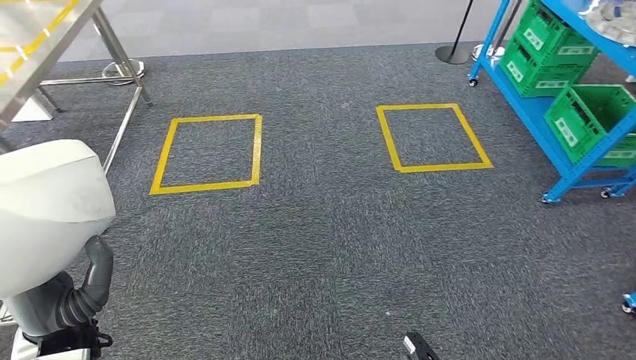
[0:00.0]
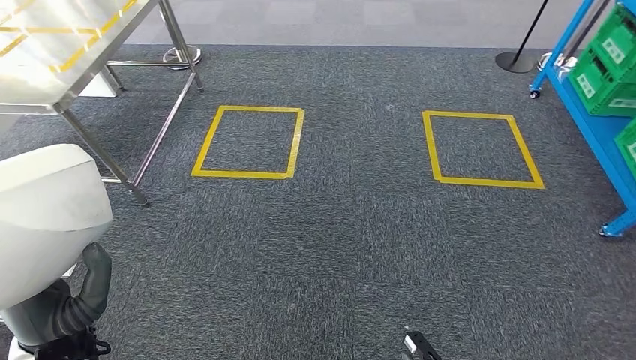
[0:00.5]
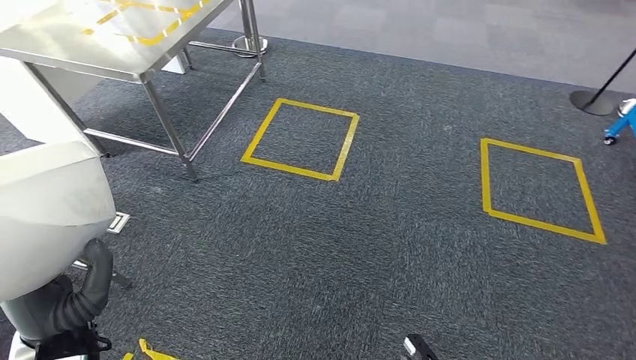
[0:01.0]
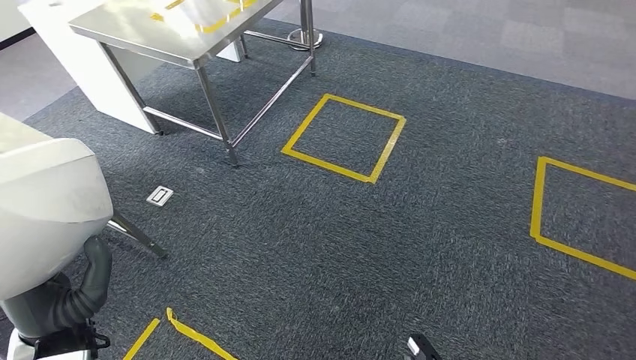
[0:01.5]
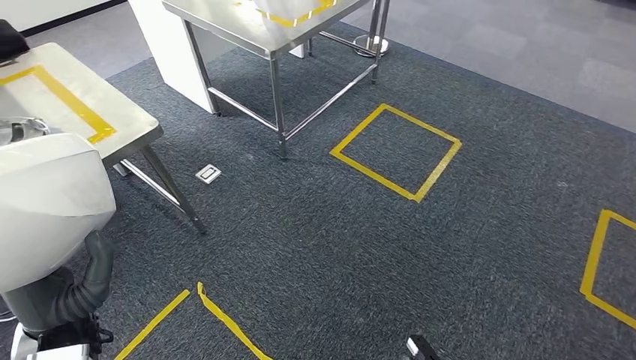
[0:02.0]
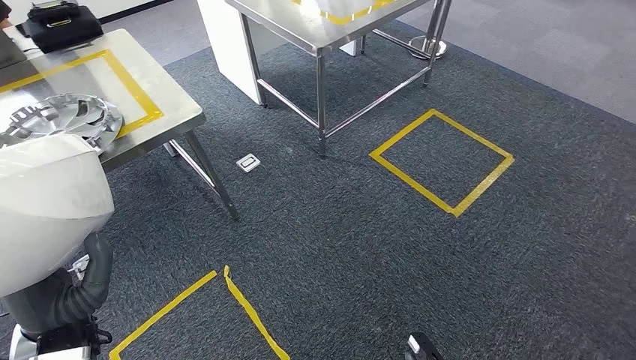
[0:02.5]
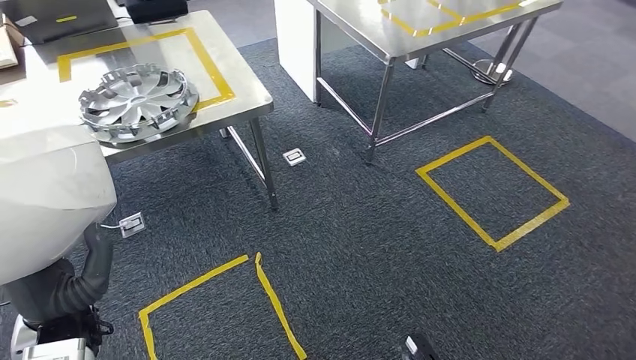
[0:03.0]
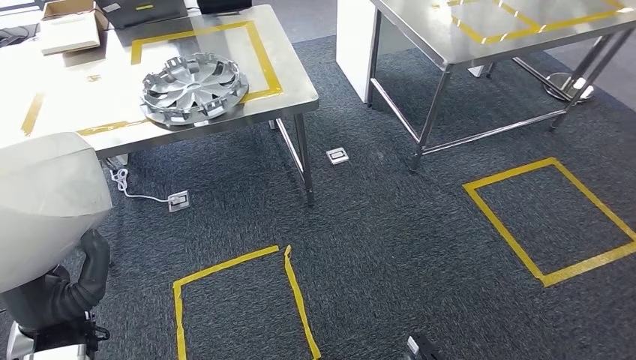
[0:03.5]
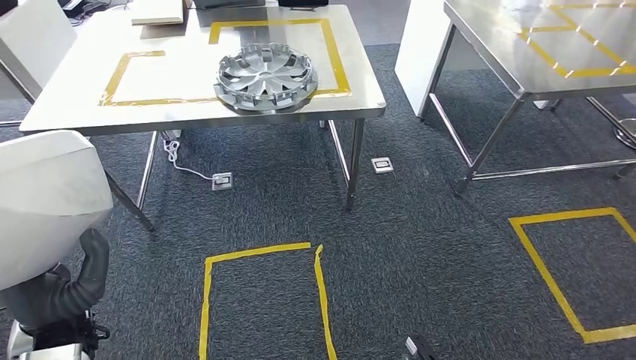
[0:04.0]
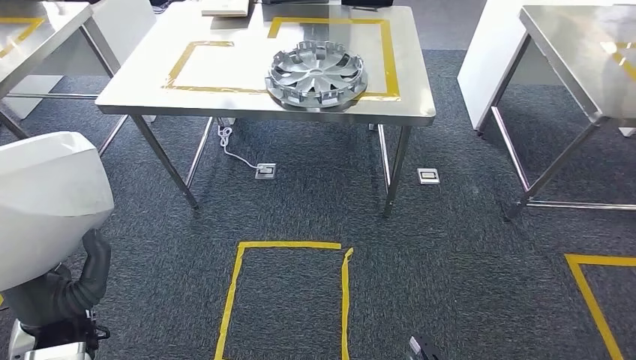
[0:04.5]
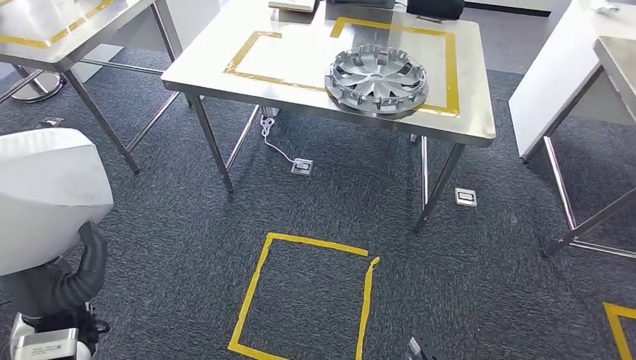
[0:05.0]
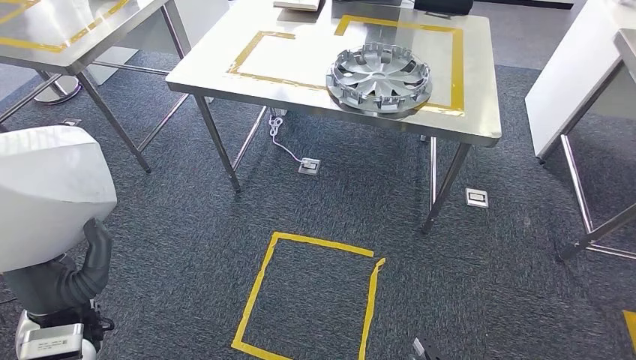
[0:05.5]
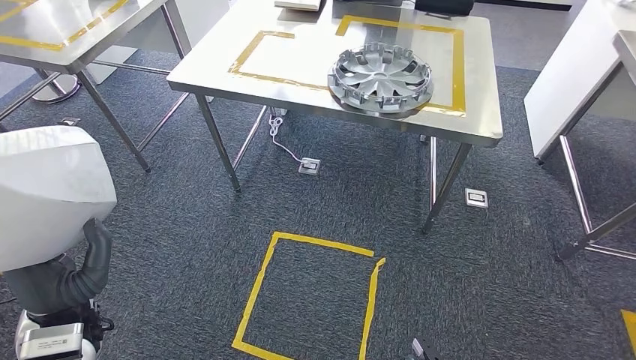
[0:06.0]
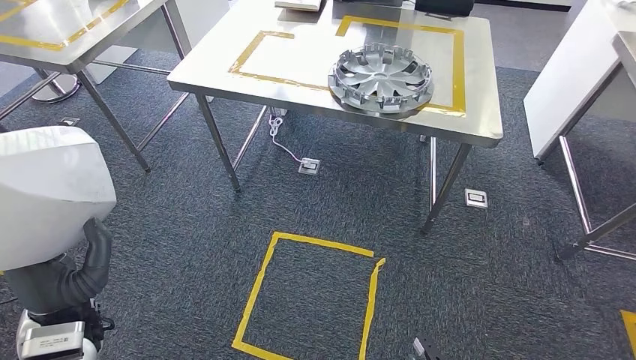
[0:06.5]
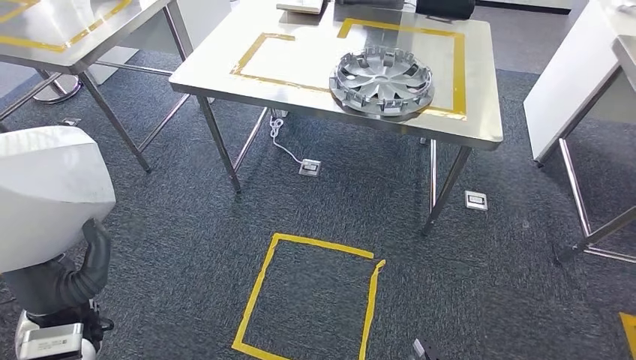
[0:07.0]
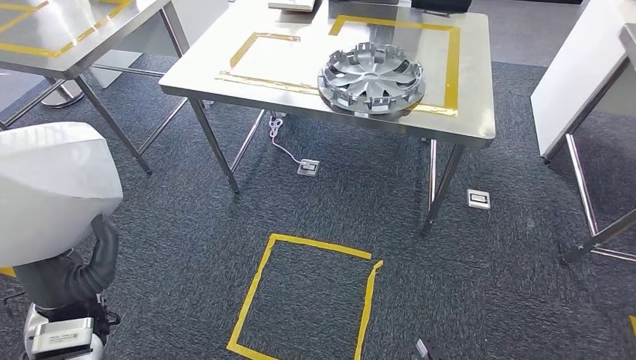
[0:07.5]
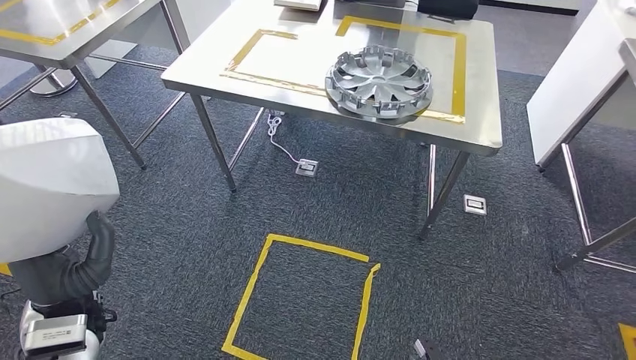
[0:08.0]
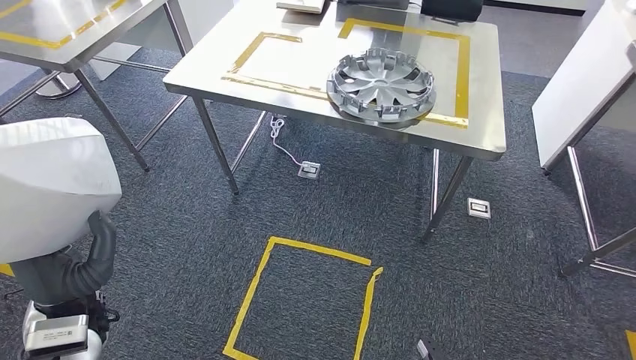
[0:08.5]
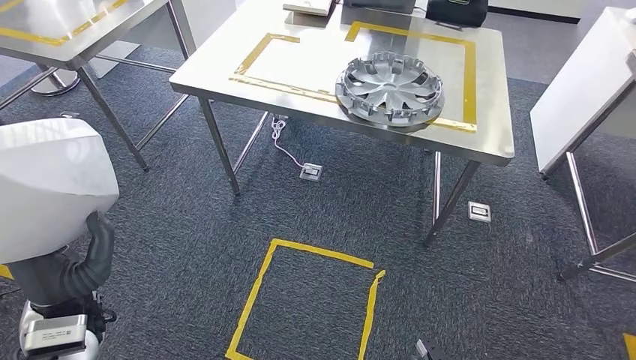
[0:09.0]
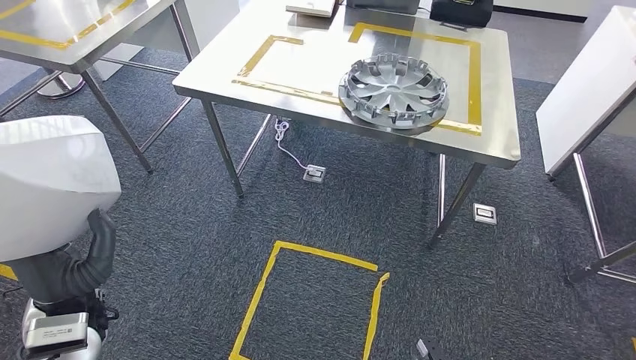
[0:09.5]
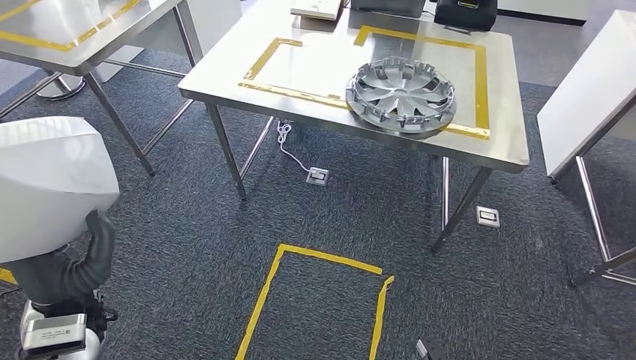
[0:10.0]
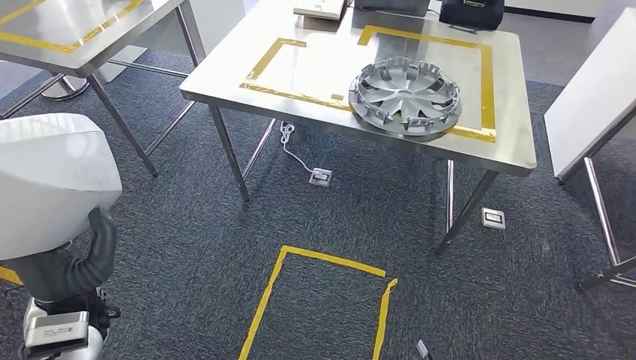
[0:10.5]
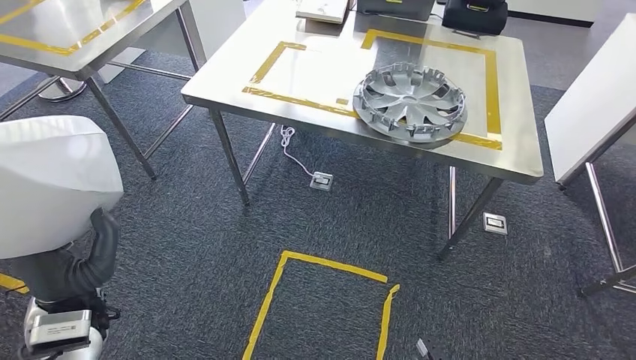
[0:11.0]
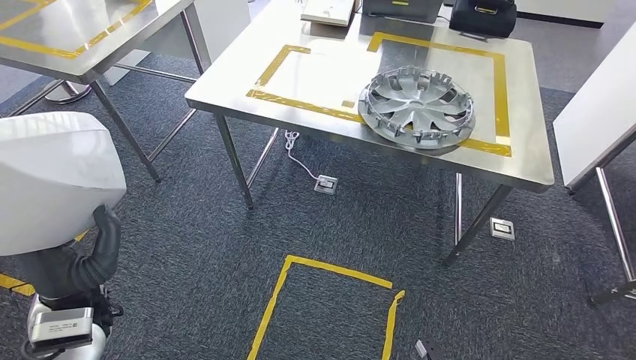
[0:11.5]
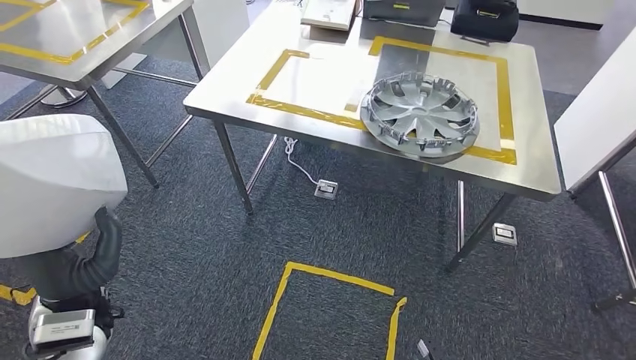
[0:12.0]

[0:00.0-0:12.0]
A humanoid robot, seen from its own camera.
Step, 0:00.0 to 0:04.5: Move the small parts to the workbench.
0:06.0 to 0:08.0: The two hands keep their place.

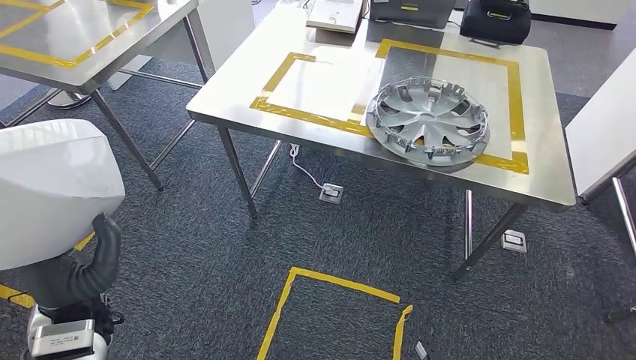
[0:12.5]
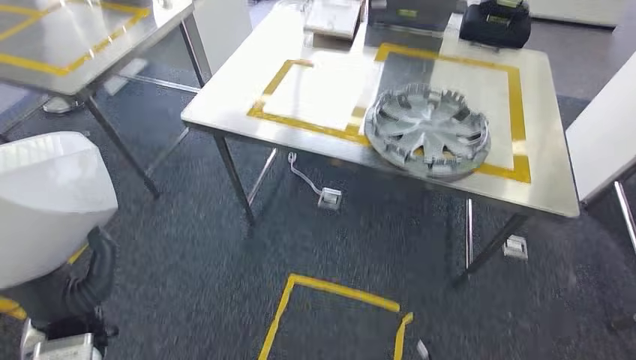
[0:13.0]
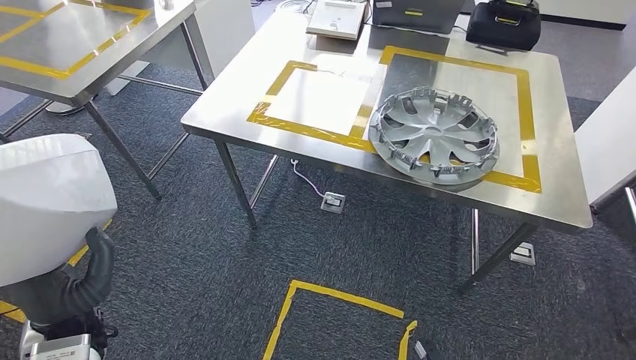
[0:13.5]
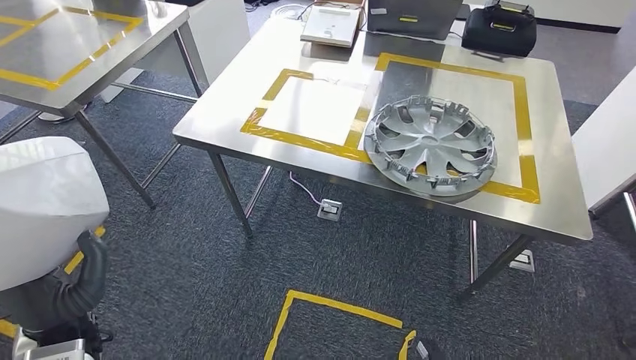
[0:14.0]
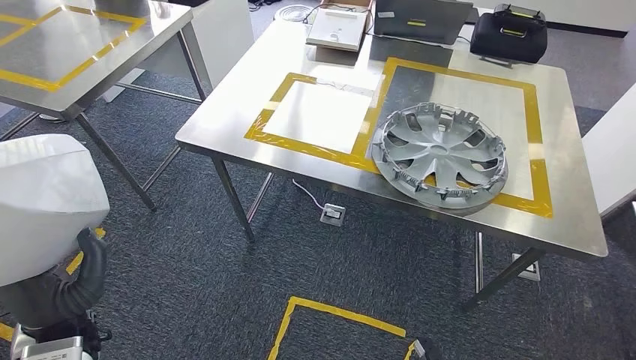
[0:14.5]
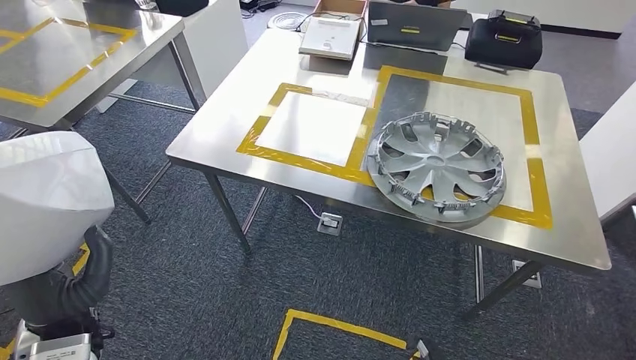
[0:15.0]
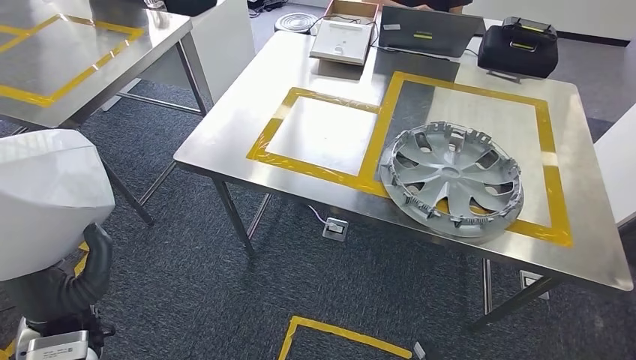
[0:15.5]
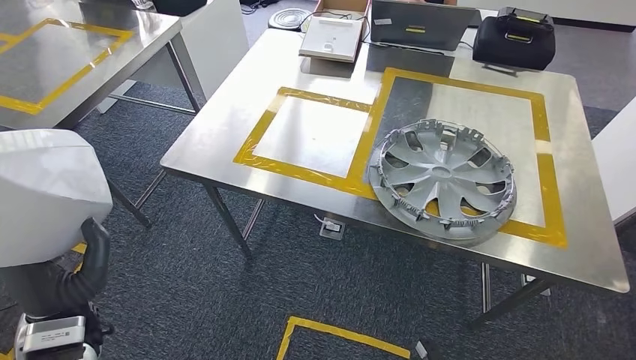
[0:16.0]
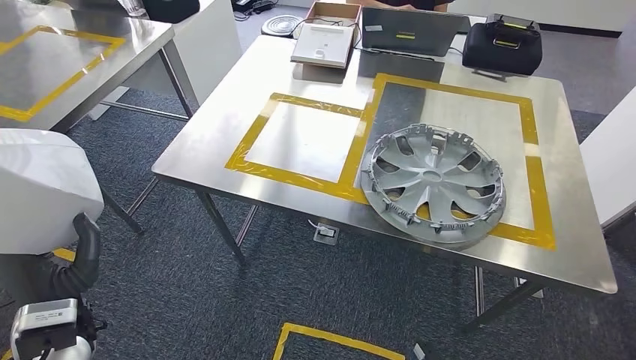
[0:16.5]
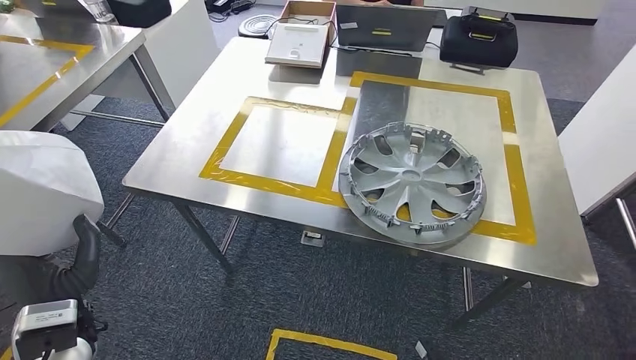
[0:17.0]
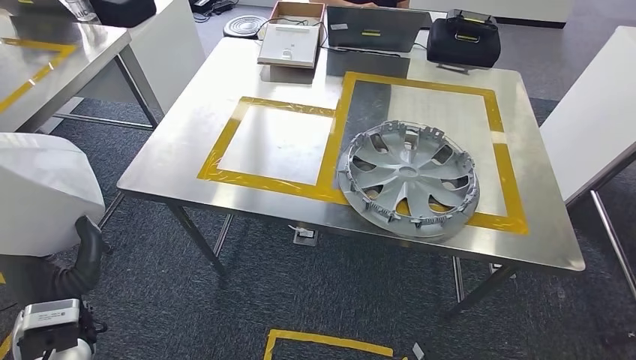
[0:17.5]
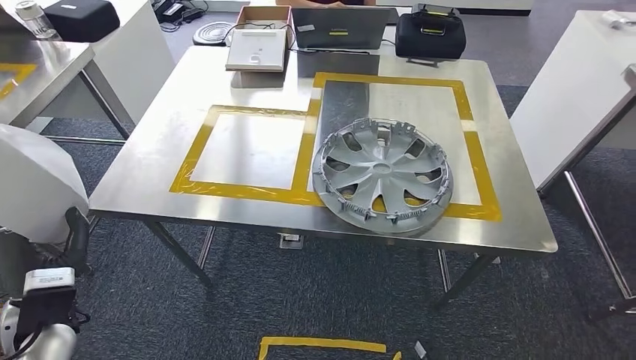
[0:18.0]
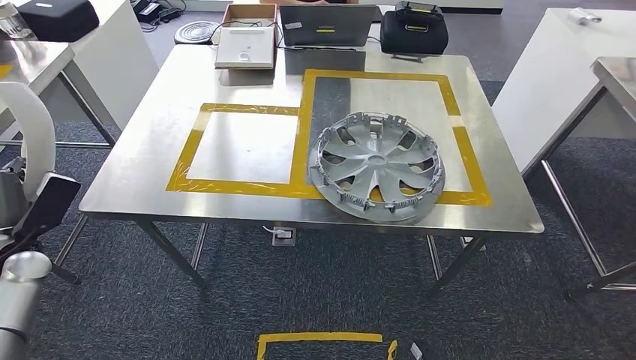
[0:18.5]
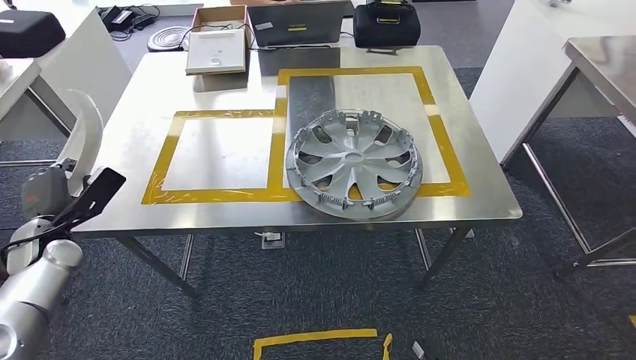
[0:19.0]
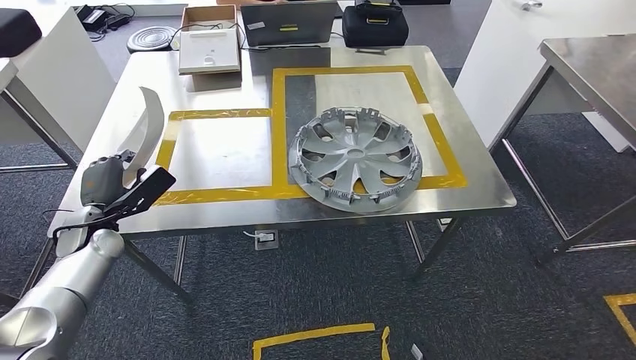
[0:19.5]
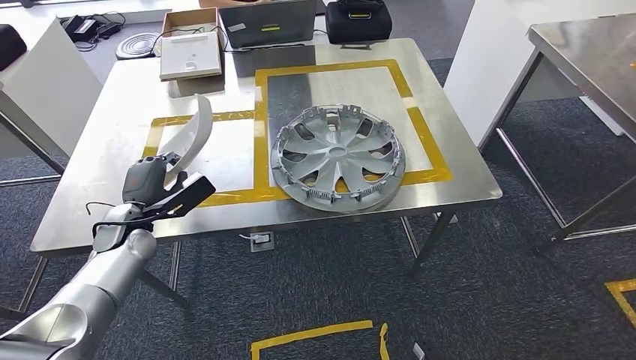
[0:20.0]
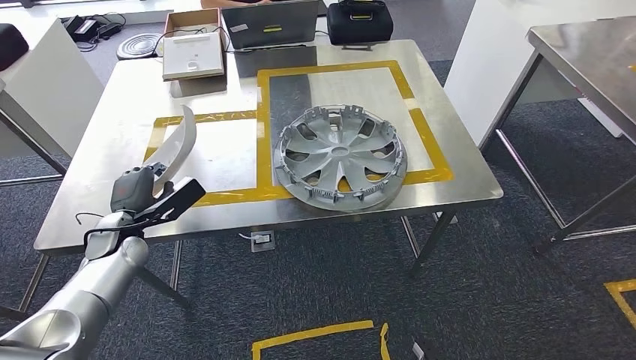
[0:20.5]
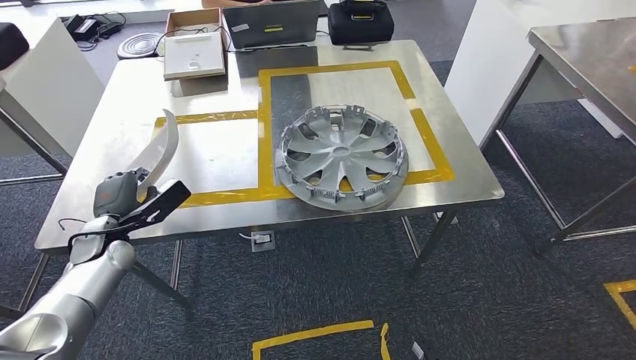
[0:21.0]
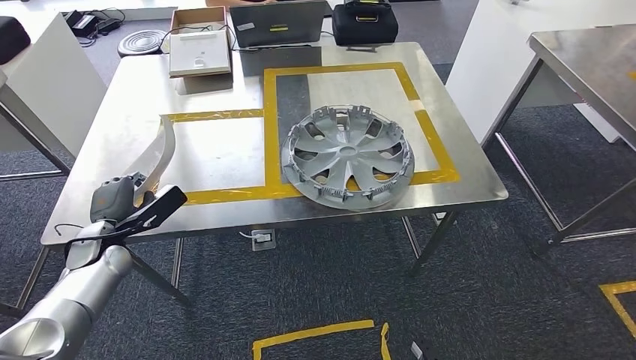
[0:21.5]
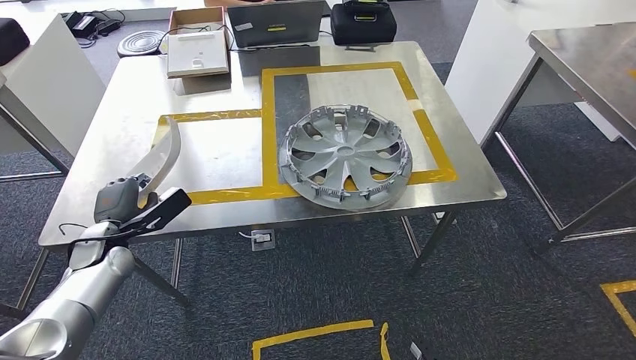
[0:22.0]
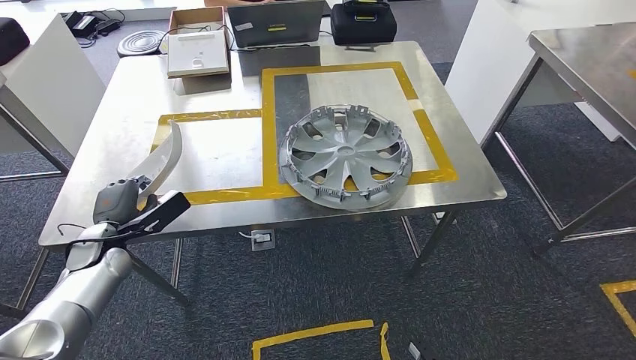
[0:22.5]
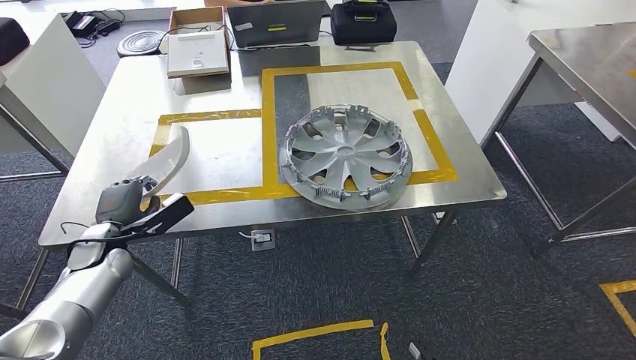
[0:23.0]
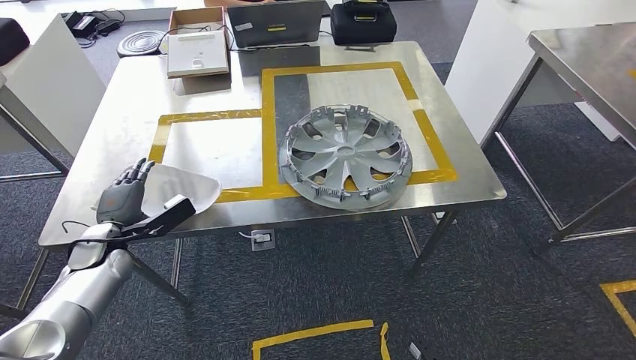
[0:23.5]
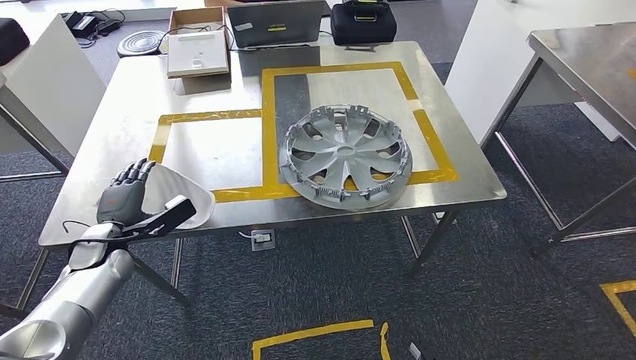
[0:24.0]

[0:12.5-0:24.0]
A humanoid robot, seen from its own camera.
0:22.0 to 0:24.0: The hands make only small movements.
